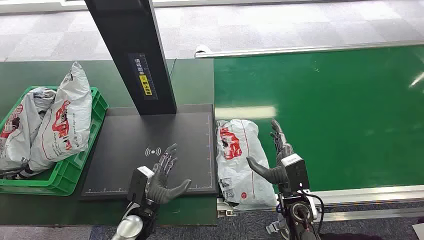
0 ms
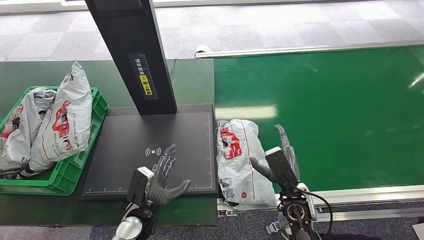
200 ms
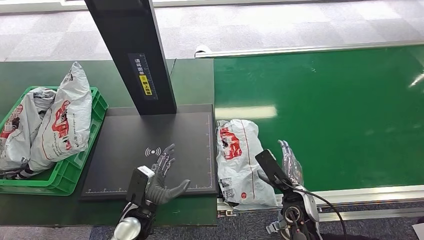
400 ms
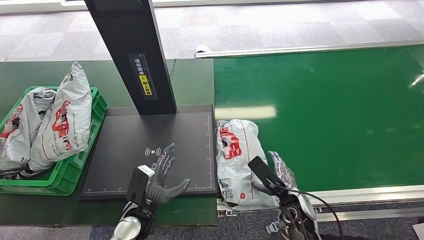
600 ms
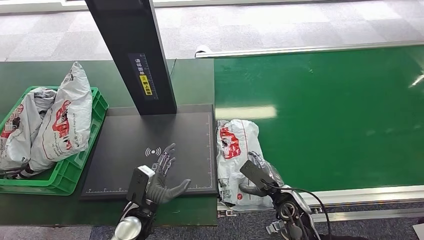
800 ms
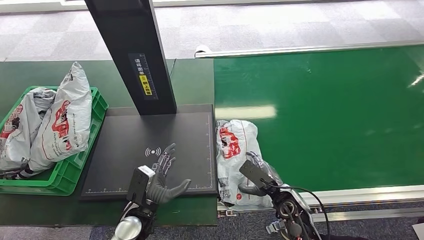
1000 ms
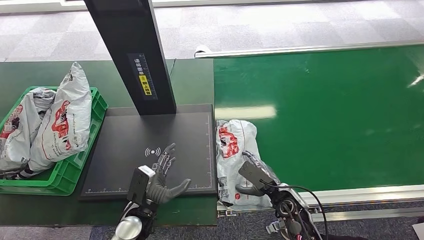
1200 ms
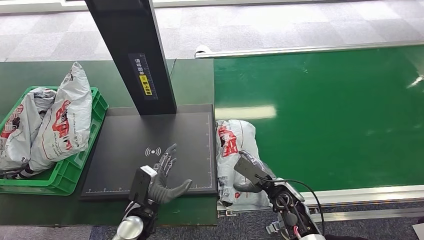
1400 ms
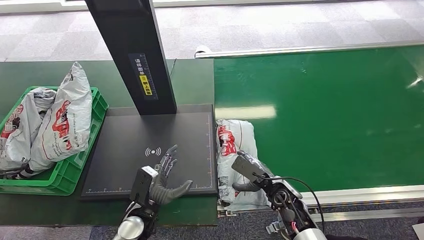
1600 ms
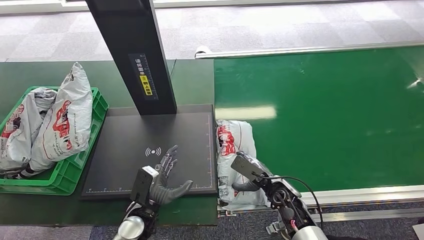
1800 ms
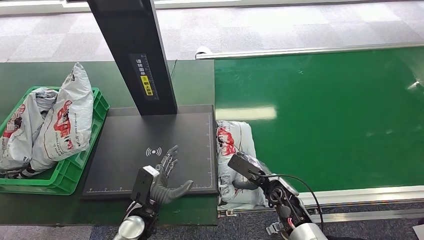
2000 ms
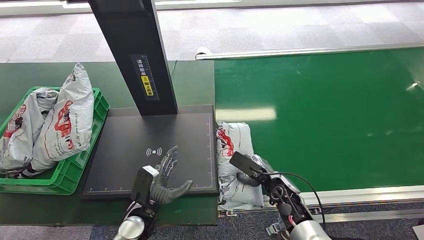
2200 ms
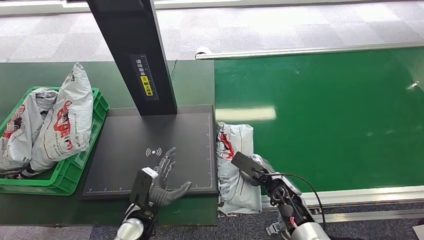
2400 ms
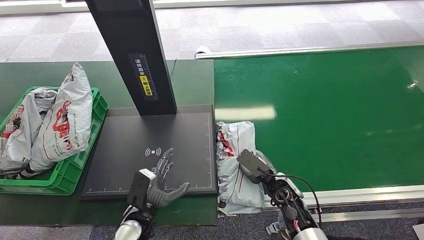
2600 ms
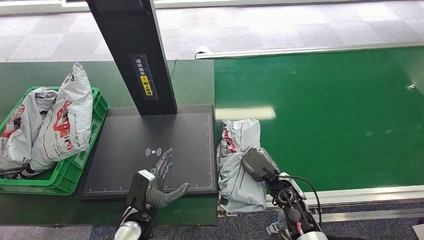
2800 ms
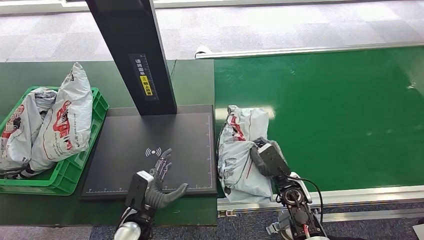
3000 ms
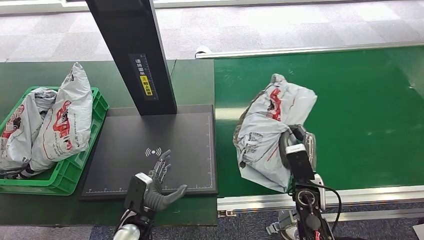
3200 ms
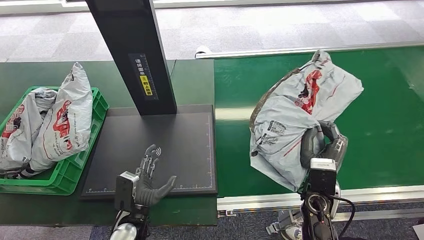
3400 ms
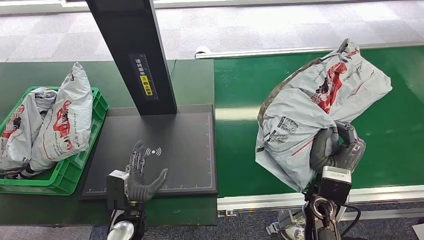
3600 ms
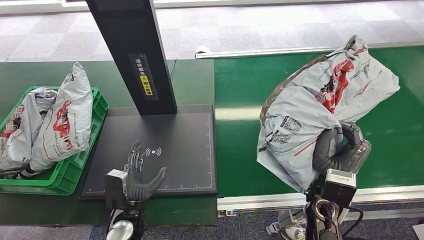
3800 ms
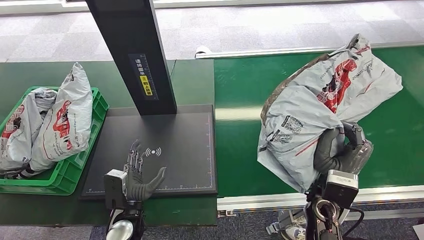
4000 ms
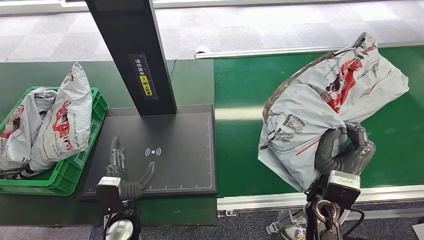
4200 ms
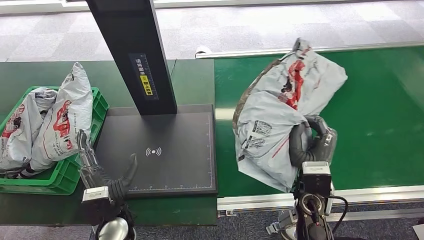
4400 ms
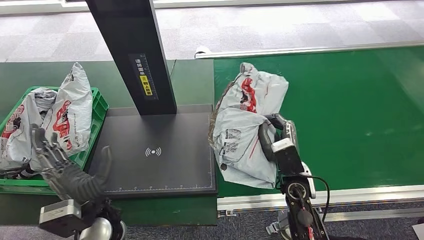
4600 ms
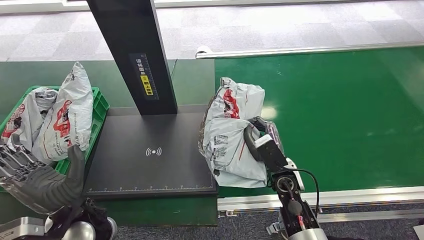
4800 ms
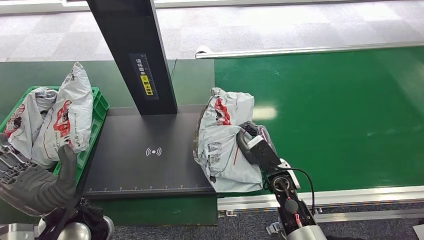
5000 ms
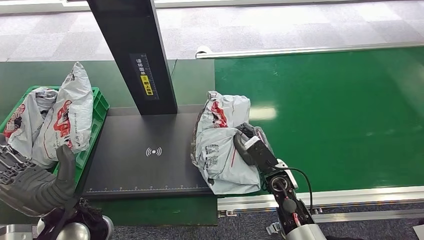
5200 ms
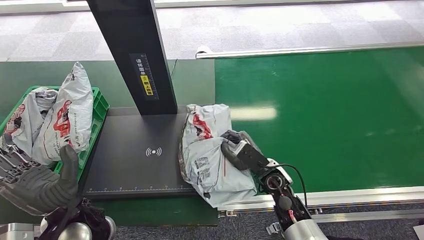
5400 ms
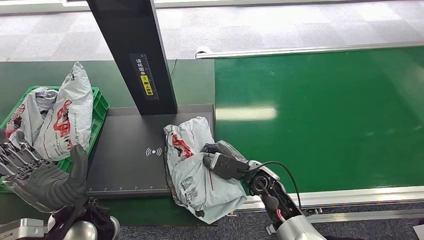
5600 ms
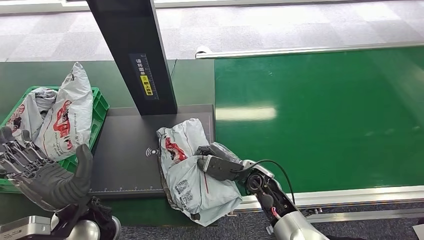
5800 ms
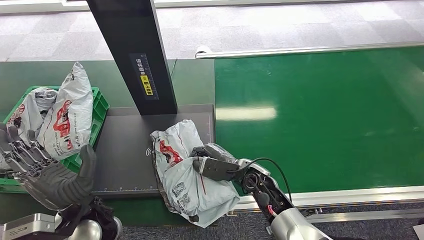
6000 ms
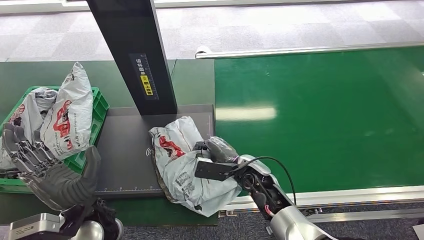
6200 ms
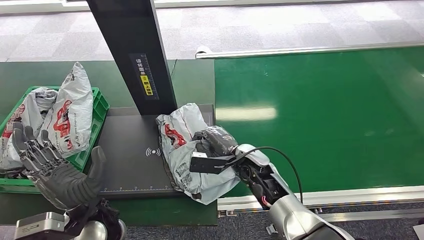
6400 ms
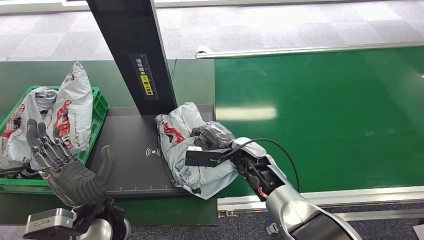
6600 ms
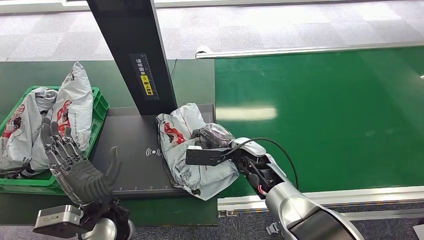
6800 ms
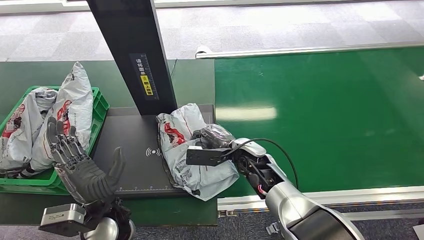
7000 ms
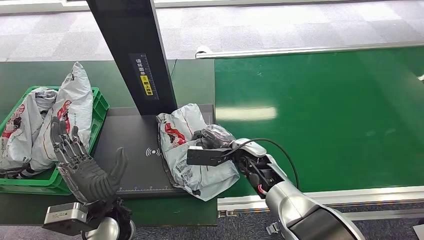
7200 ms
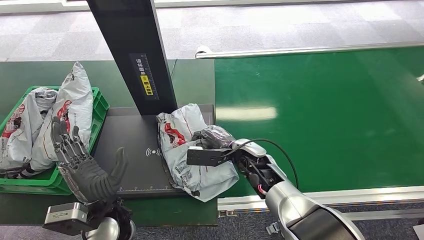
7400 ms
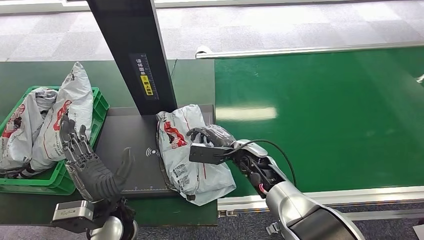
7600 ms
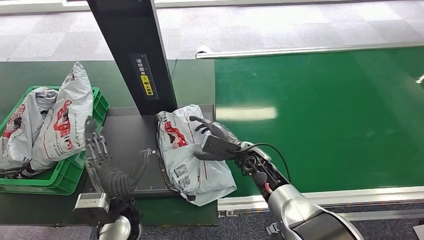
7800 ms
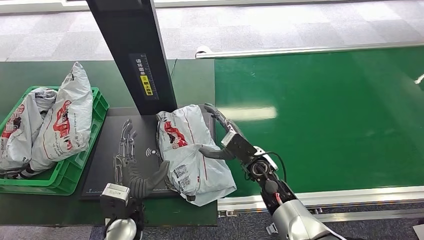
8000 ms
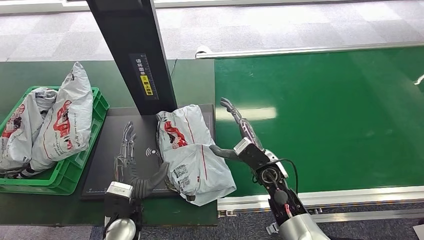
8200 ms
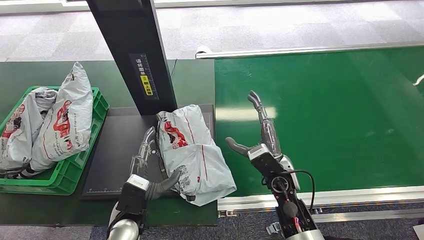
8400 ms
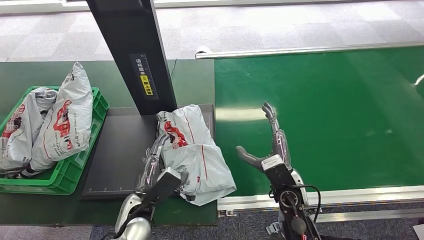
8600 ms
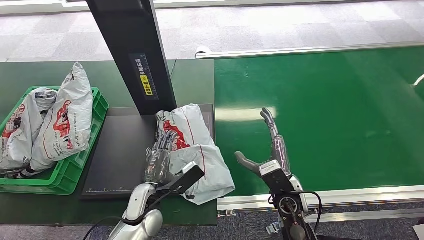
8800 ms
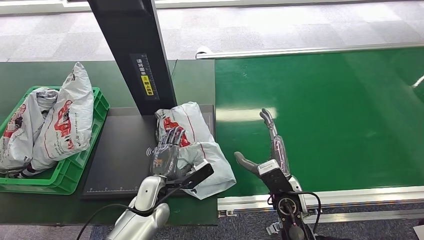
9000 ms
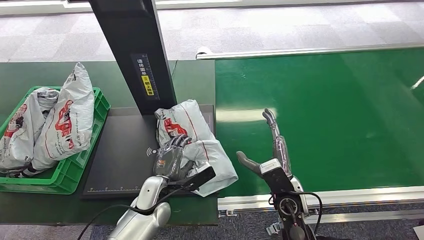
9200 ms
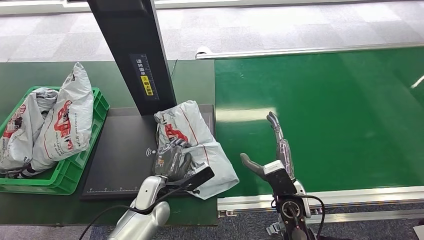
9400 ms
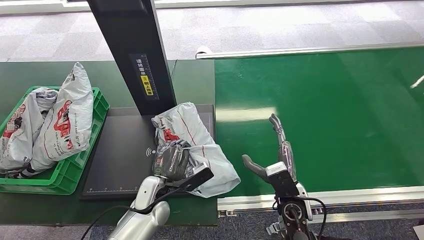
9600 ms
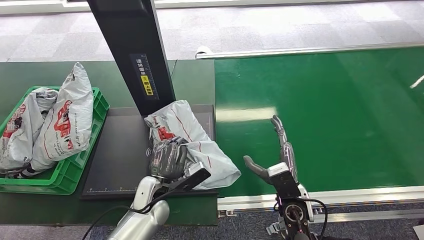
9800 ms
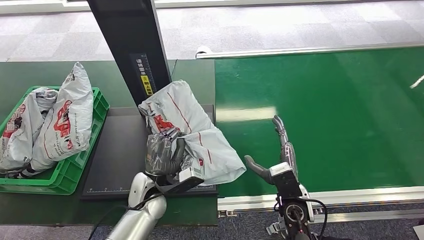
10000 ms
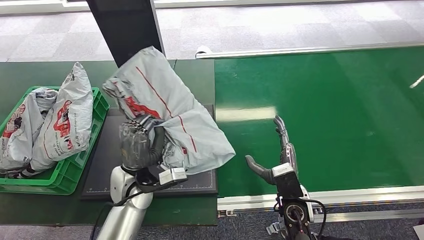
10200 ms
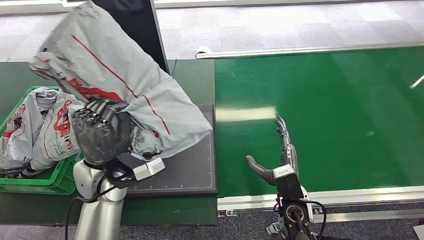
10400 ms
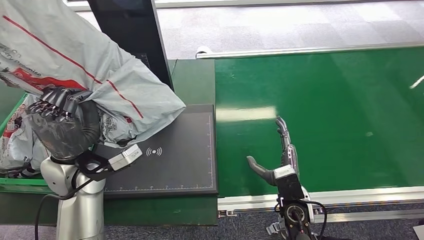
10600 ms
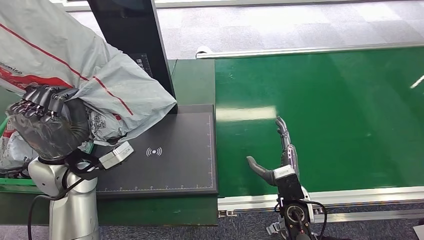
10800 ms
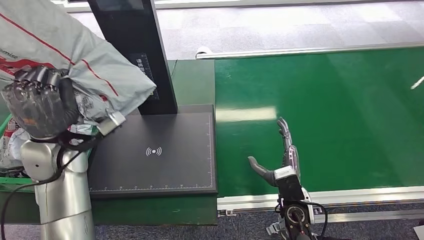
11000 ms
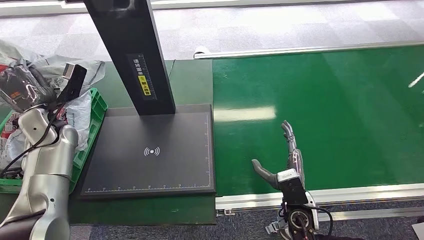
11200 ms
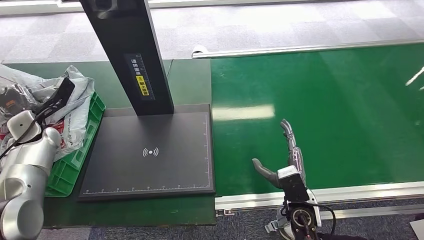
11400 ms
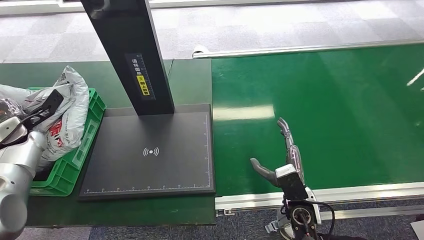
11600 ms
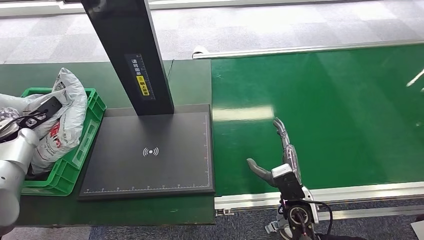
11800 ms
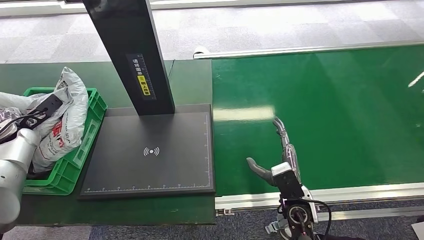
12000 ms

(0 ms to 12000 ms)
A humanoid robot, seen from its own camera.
Step, 0 ms - 4000 ms: Pick up the package from the conveyor belt.
Step, 4200 ms - 9000 ms: Place the package onto the inbound machine.
Step, 9200 ms - 11200 ms: Pick up the package from the inbound machine.
3000 ms - 4400 ms: The right hand moves upward, approximately 10 cm. Meanwhile the left hand travels upward by approximately 5 cm.
6000 ms - 7600 ms: The right hand ends up roughly 5 cm from where it was.
7600 ms - 9000 ms: The right hand moves backward and to the right, about 15 cm. The left hand is displaced downward, forward and to the right by some 10 cm.

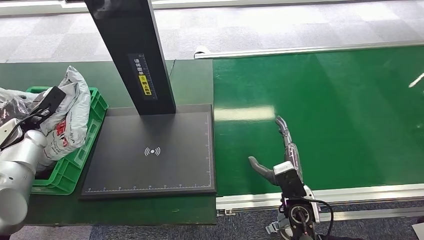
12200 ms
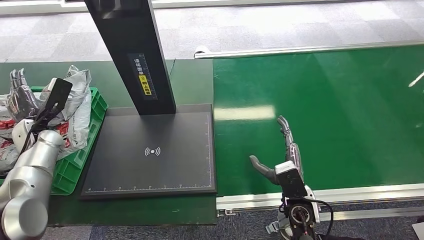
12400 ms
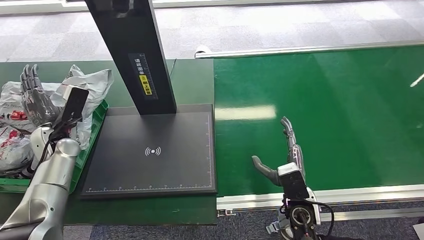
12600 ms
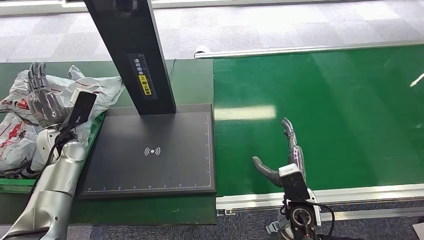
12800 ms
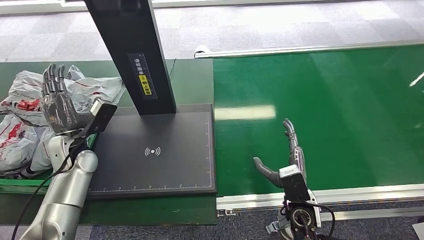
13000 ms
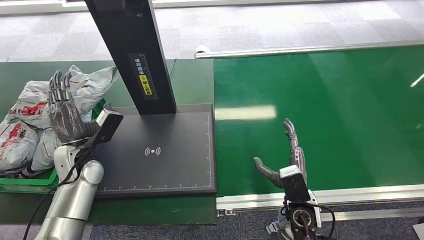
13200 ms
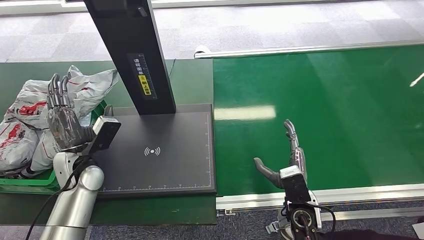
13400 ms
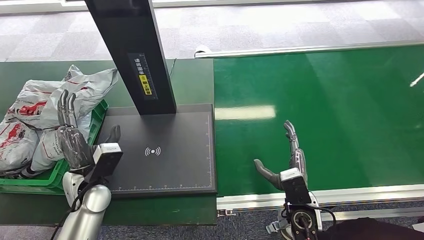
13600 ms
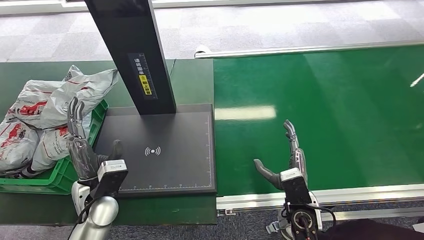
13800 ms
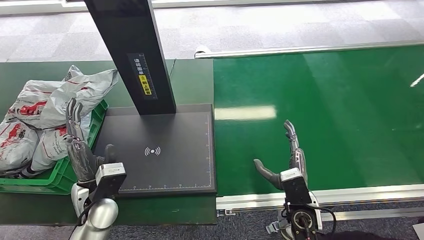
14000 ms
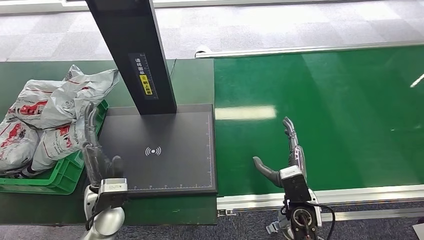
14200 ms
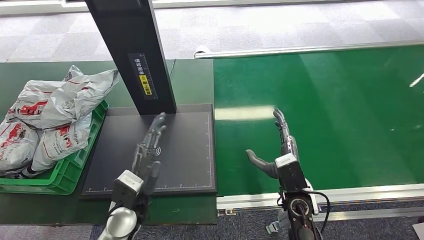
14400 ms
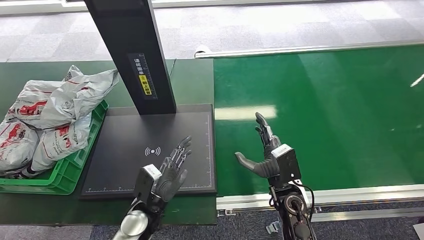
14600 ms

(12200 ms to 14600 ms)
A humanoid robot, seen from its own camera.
Step, 12200 ms - 14600 ms: Place the package into the parcel locker.
12200 ms - 13400 ms: The left hand moves to the right and backward, approximately 20 cm.
13400 ms - 14600 ms: The left hand is displaced to the right, downward and backward by about 20 cm.

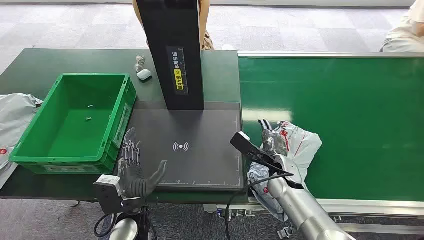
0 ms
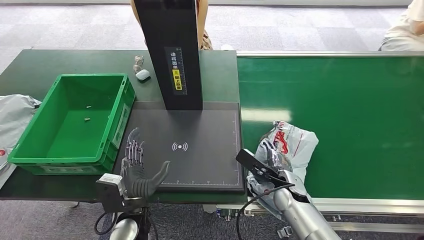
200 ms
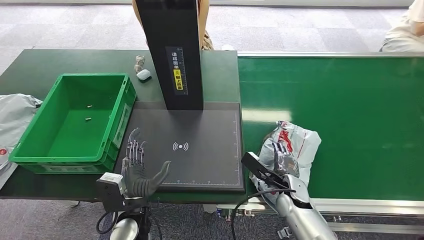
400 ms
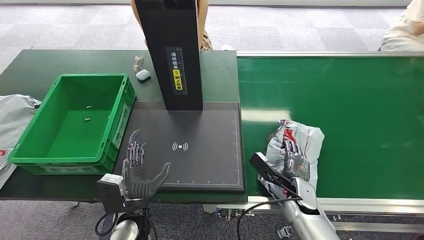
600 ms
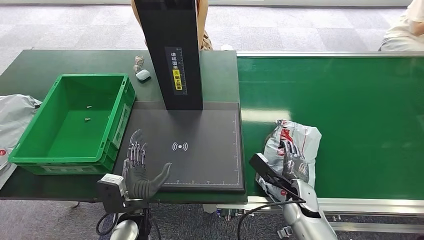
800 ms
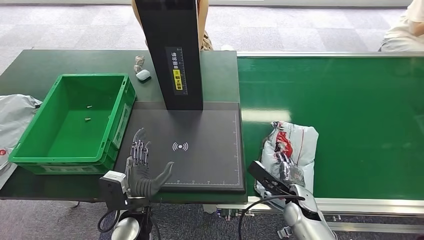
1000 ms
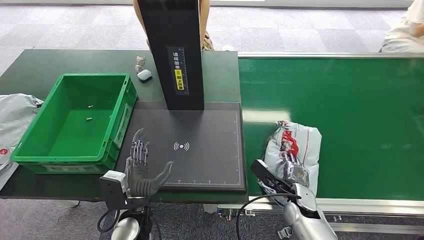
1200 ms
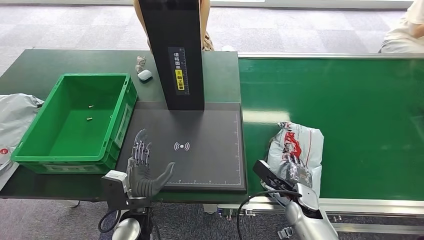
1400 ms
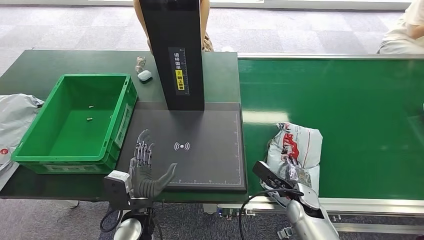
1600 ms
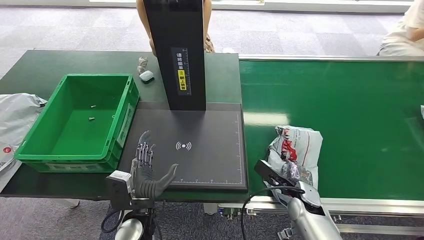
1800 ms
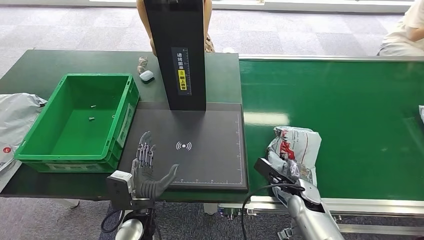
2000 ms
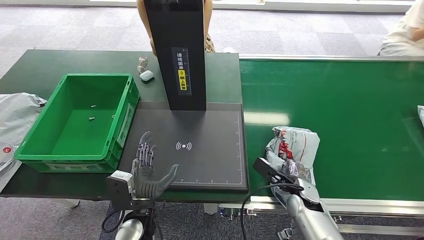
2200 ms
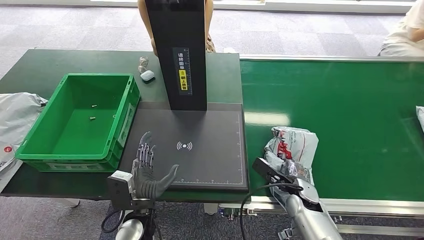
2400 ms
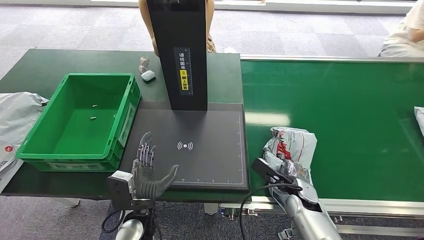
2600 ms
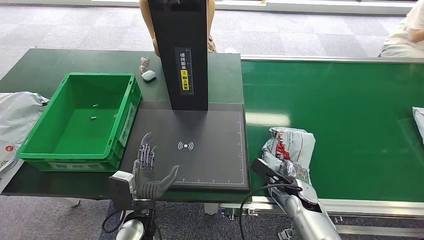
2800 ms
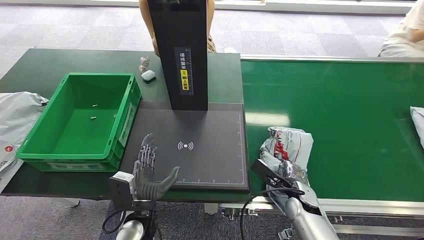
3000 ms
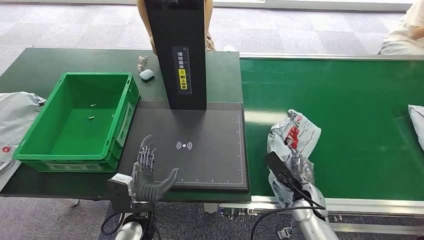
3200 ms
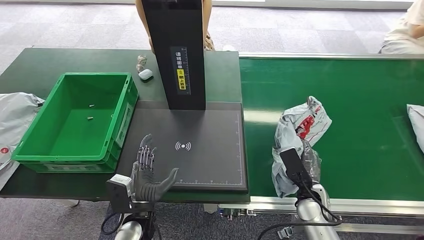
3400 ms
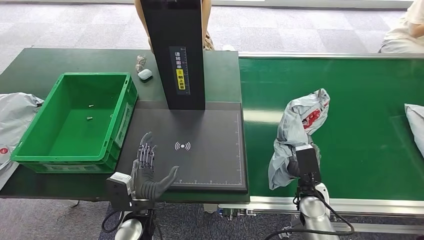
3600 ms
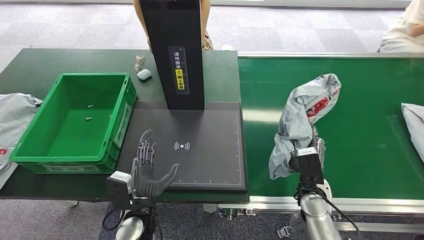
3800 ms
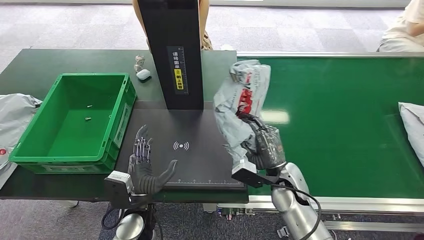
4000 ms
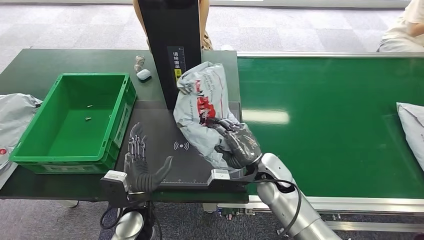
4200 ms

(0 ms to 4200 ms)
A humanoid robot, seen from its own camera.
Step, 0 ms - 3600 ms: Pick up the package from the conveyor belt.
